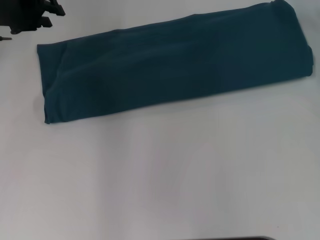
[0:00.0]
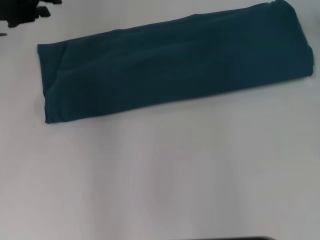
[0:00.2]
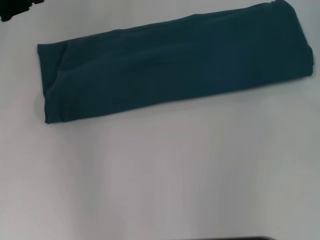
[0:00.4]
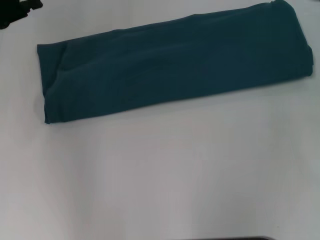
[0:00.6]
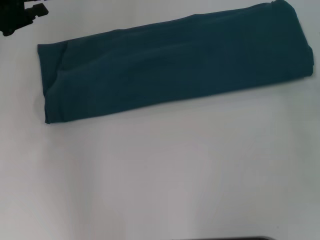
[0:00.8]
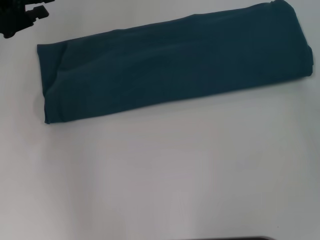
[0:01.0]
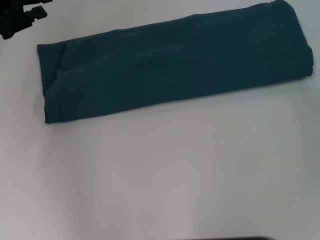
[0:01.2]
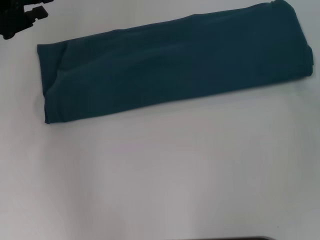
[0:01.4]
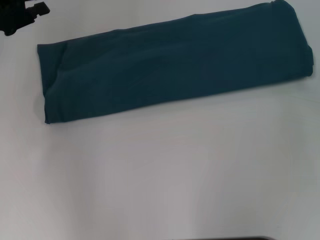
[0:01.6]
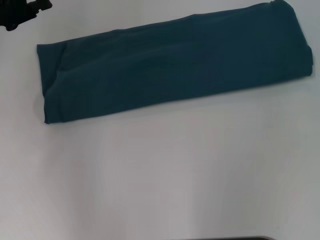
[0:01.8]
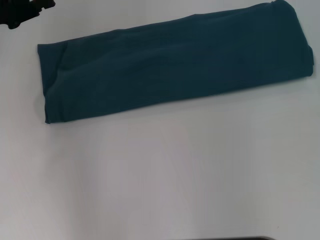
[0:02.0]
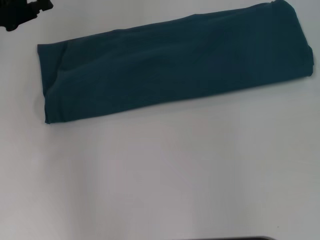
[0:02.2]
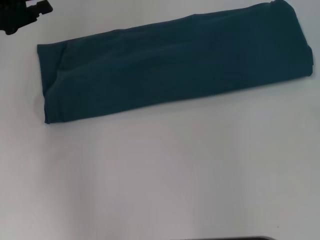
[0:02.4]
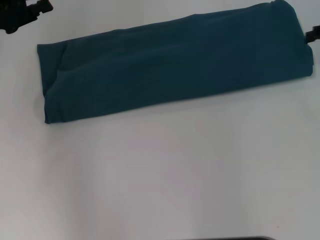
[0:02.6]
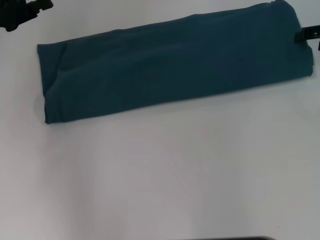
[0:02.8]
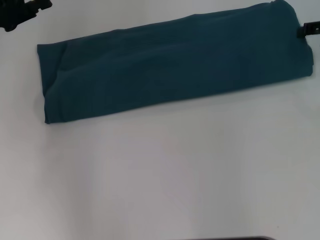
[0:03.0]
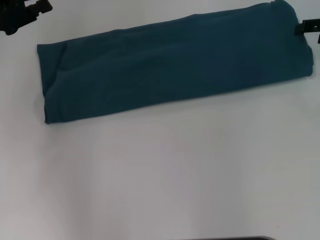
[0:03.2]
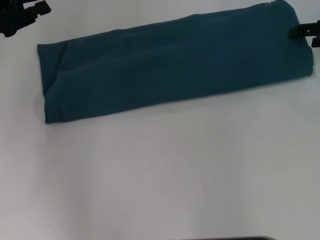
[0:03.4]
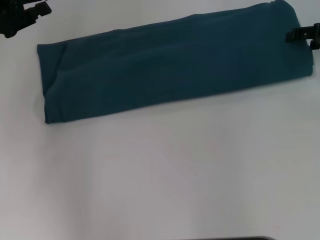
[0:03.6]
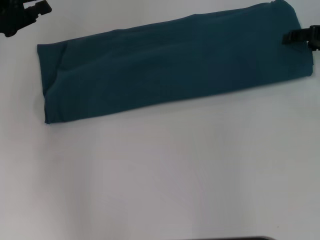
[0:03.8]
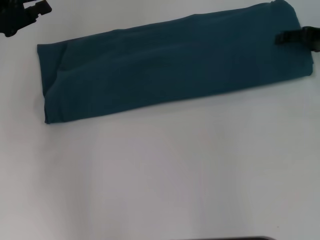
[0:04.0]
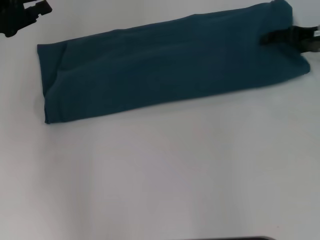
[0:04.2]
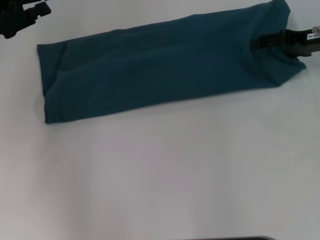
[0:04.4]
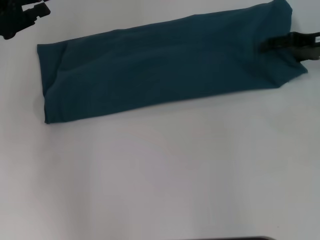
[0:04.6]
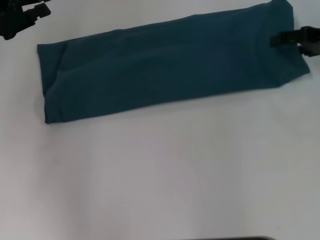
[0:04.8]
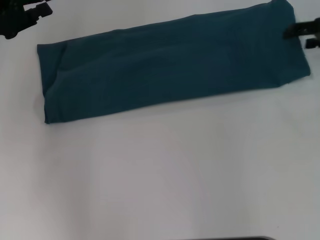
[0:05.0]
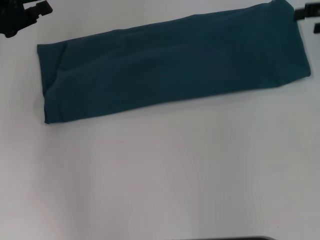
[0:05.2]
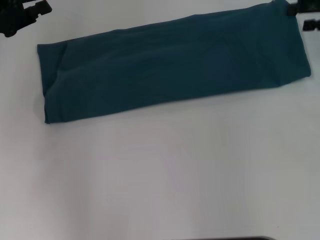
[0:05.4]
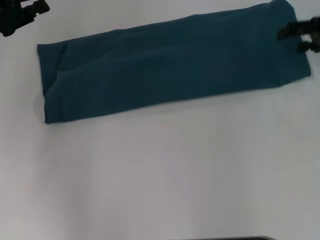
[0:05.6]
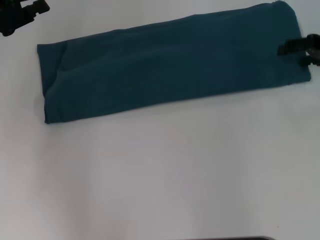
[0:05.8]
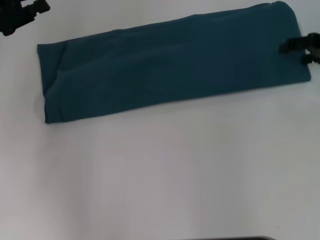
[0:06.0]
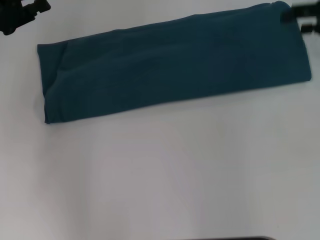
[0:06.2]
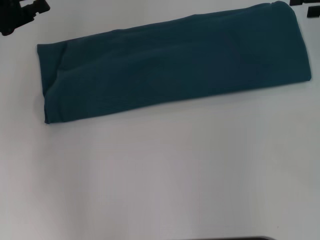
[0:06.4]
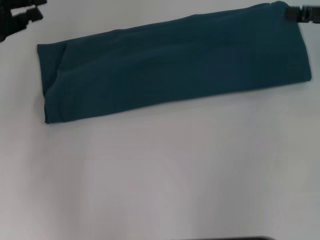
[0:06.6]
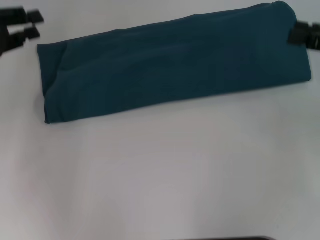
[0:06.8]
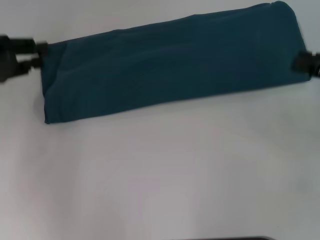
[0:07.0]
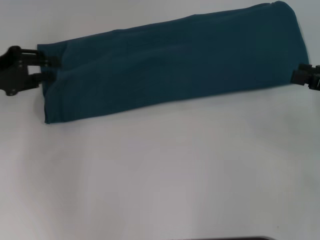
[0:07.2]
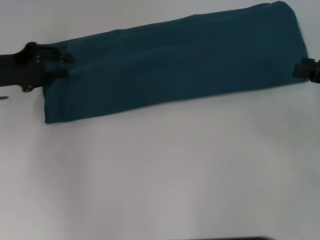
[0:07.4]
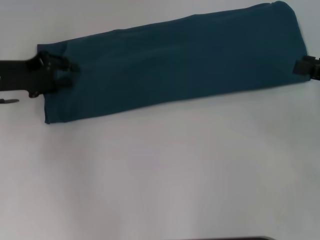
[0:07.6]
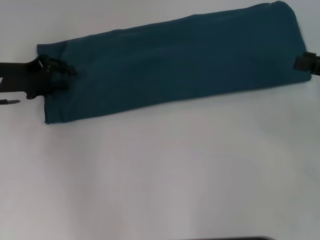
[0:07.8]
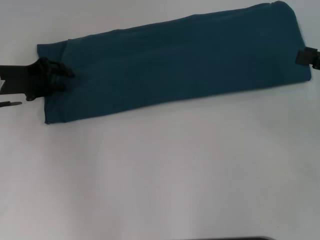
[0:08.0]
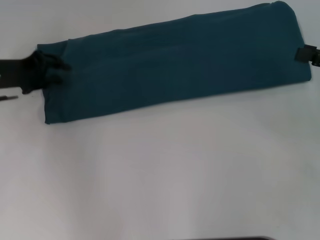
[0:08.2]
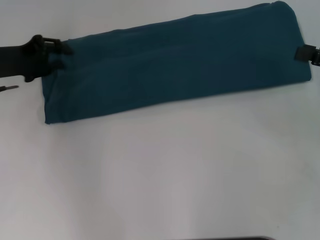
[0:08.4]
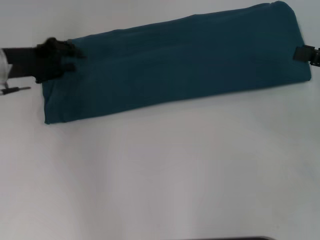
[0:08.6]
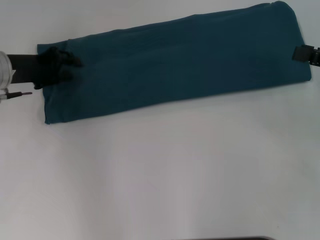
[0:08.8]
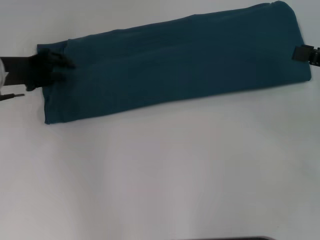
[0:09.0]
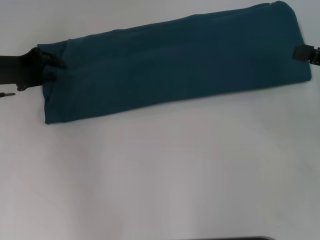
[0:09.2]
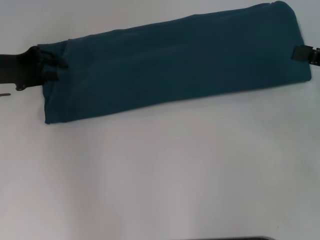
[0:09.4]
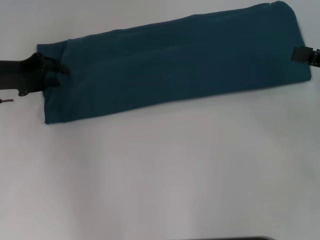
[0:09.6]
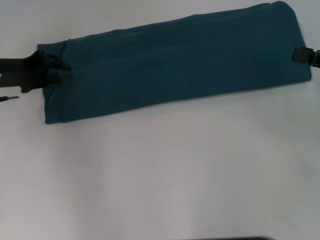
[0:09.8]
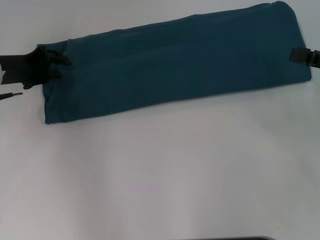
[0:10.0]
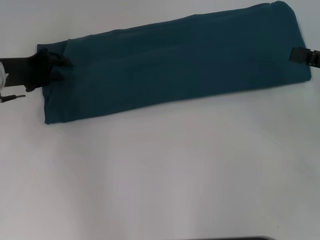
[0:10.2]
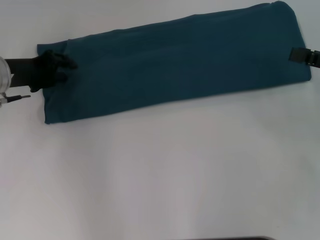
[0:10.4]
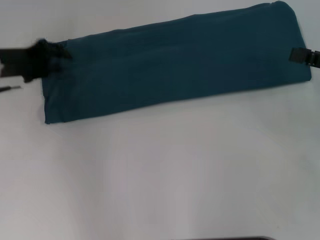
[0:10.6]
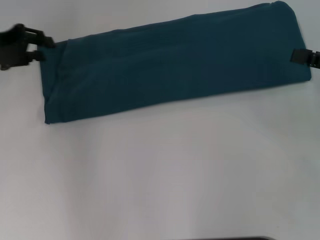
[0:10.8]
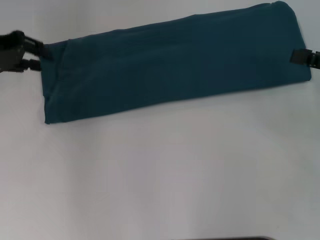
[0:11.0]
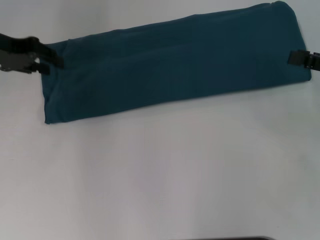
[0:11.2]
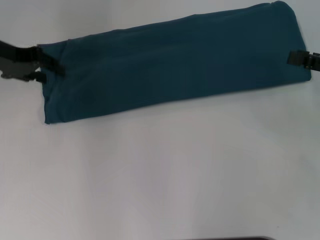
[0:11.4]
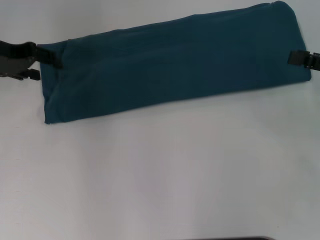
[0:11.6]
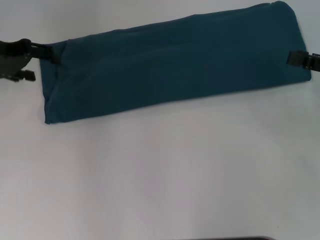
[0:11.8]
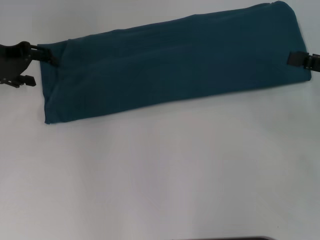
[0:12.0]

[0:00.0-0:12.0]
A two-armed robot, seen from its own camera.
0:00.0 to 0:01.6: The left gripper shifts roughly 5 cm backward.
0:03.0 to 0:04.4: The right gripper goes roughly 5 cm to the left.
0:06.0 to 0:07.6: The right gripper travels backward by approximately 10 cm. The left gripper is displaced downward by about 5 cm.
0:07.6 to 0:10.4: The grippers move only a little.
0:10.4 to 0:12.0: The left gripper goes approximately 5 cm upward, and opens.

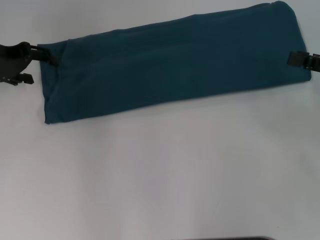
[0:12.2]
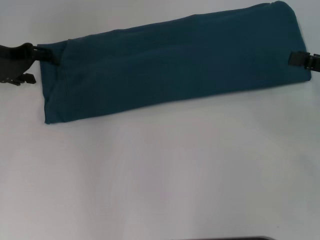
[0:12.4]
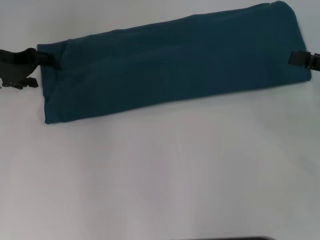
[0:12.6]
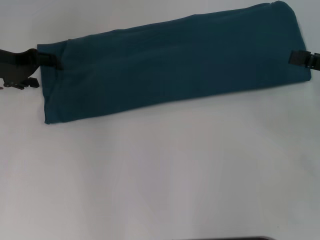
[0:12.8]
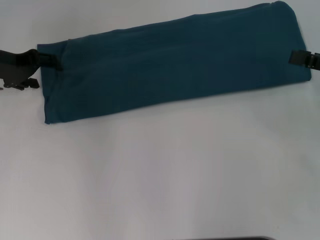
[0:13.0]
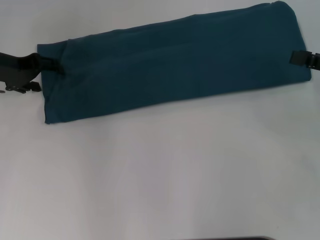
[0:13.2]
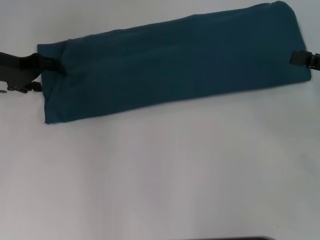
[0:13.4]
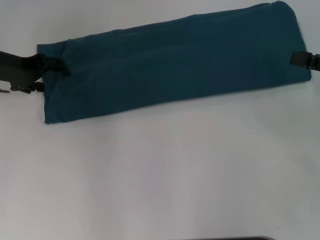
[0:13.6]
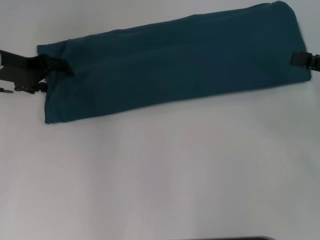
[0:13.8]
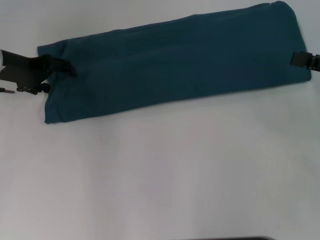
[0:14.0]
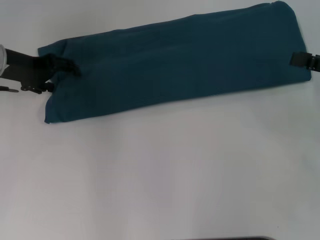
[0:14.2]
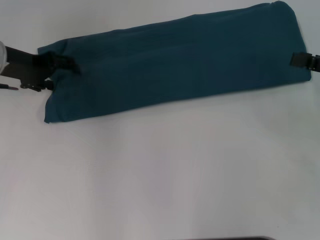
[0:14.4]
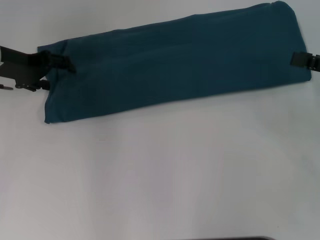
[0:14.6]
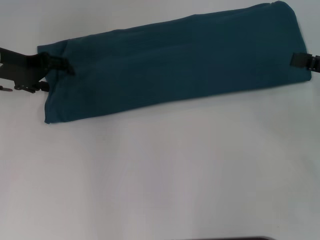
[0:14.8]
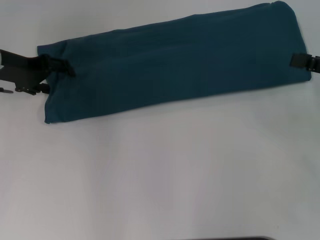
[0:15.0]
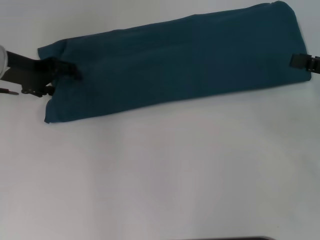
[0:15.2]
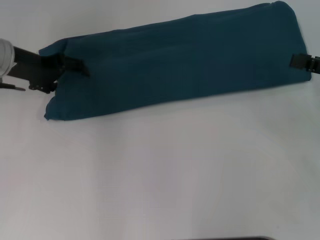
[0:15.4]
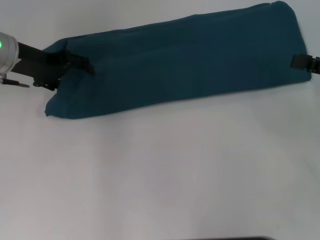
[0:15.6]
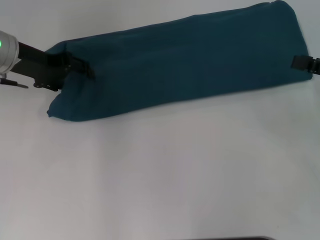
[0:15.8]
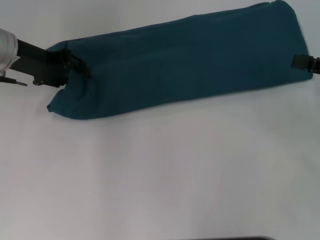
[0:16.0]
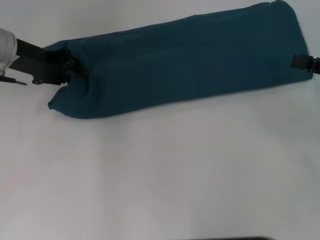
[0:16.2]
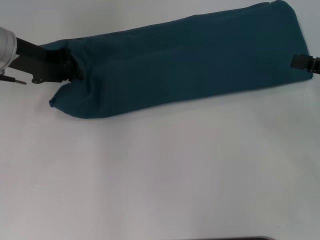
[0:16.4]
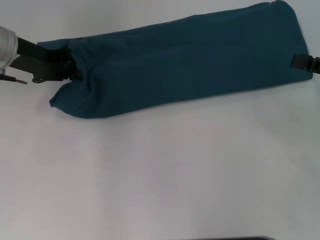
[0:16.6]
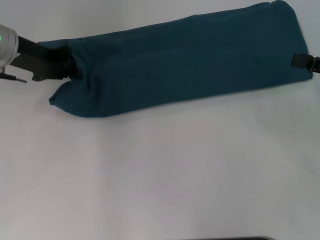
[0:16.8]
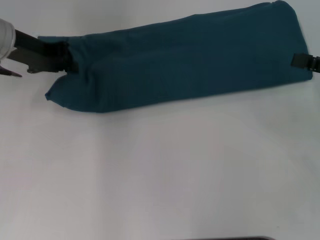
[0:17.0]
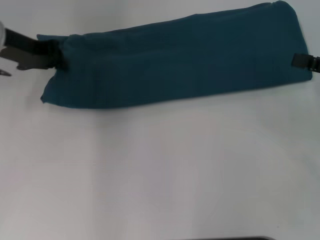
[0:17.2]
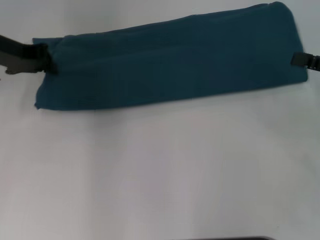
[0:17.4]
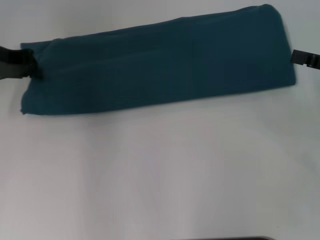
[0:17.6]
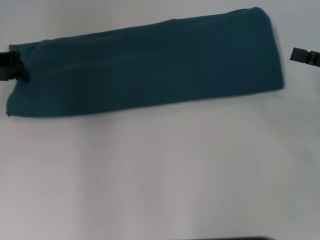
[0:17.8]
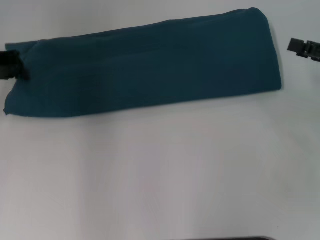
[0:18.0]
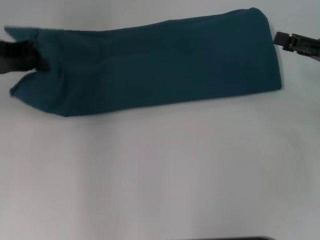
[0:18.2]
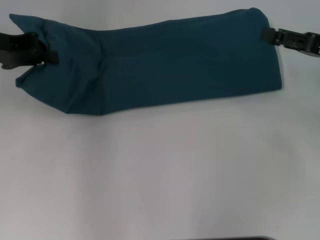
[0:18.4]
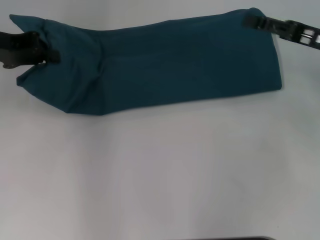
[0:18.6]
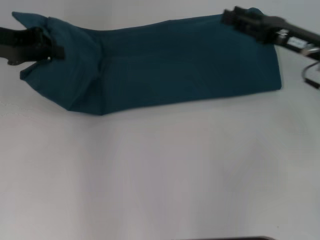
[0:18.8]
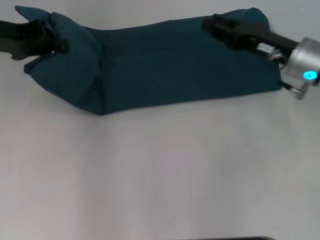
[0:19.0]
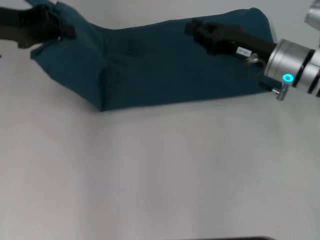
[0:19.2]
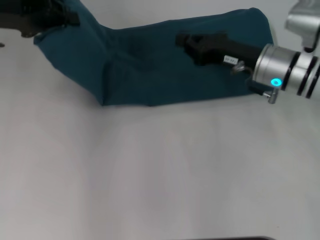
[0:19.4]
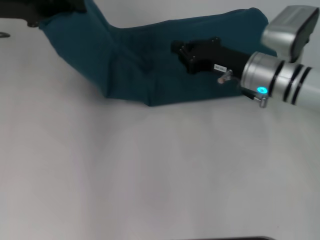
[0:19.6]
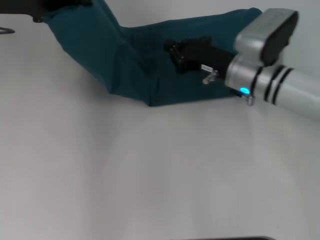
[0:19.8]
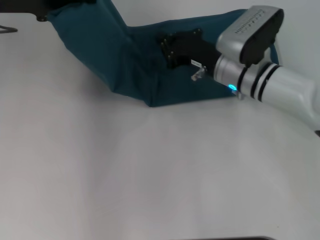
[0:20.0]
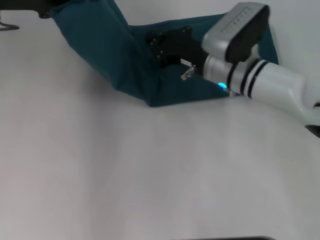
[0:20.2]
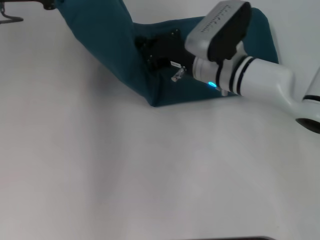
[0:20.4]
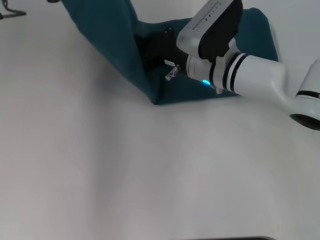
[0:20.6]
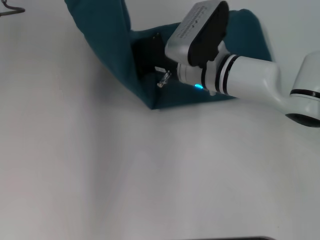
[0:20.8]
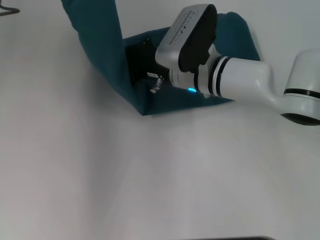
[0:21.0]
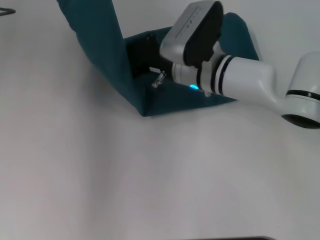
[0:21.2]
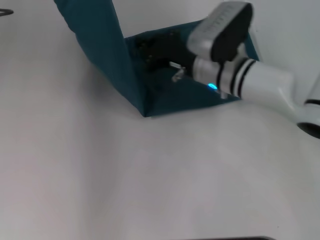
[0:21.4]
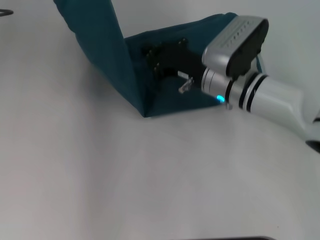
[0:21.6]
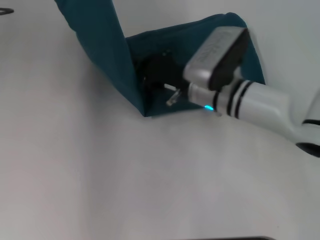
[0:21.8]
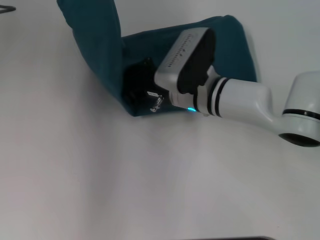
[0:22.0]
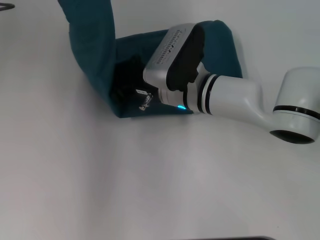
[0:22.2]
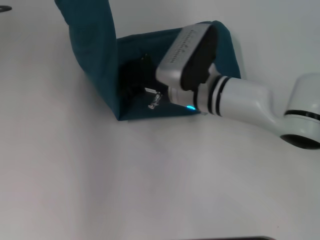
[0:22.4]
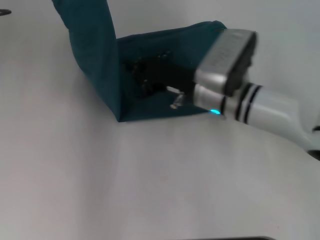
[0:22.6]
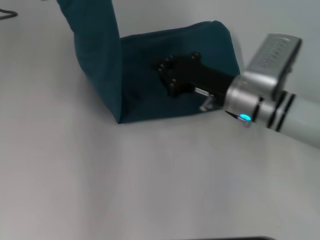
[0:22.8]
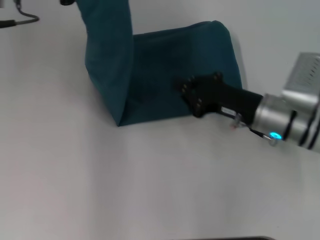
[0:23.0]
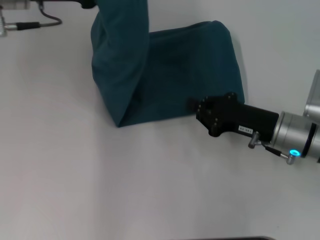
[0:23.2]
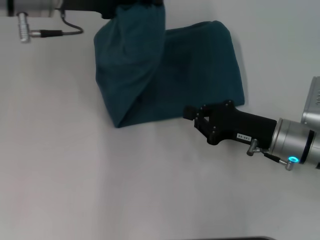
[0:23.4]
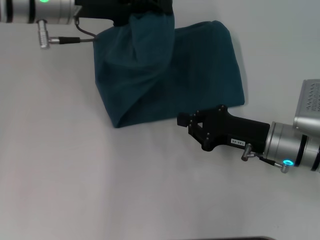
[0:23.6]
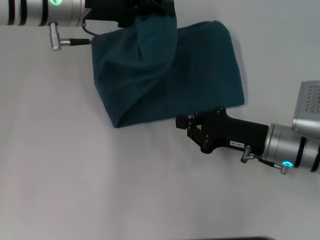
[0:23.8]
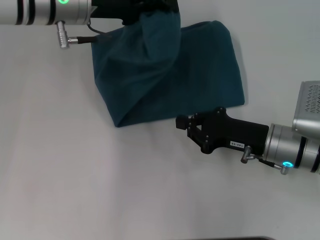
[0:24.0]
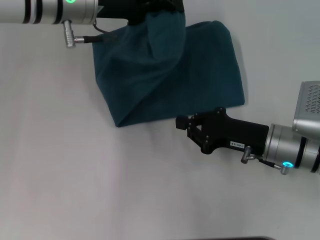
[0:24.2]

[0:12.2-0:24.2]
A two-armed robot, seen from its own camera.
Step, 0:12.2 to 0:22.4: Press the middle of the clothes with your right hand.
0:12.2 to 0:13.8: The grippers make only small movements.
0:13.8 to 0:15.2: The two grippers keep their place.
0:15.2 to 0:16.6: The left gripper closes its fingers.
0:16.6 to 0:18.2: The left gripper changes place by roughly 5 cm.
0:18.2 to 0:19.8: The right gripper is displaced to the left by some 20 cm, and closes; the left gripper shifts by about 5 cm.
0:19.8 to 0:21.2: The right gripper shifts roughly 10 cm to the left.
0:21.2 to 0:22.6: The right gripper swings left and right, about 5 cm each way, with 2 reversals.
0:22.6 to 0:24.2: The right gripper shifts some 10 cm to the right and backward. The left gripper travels to the right by roughly 10 cm.
